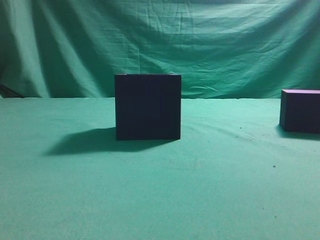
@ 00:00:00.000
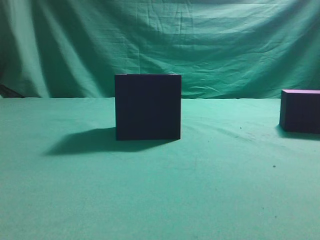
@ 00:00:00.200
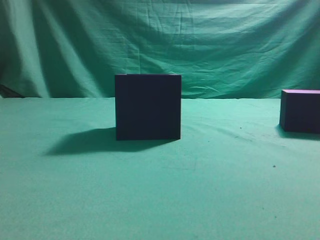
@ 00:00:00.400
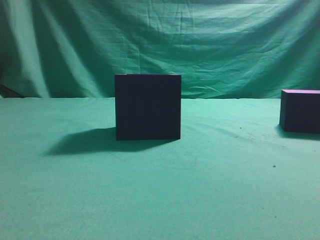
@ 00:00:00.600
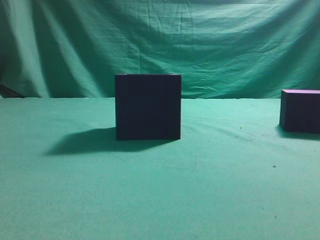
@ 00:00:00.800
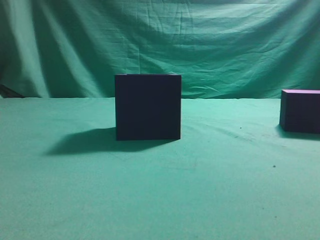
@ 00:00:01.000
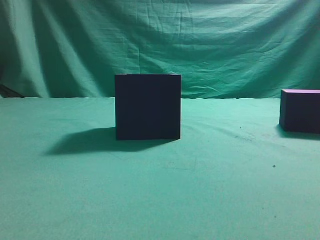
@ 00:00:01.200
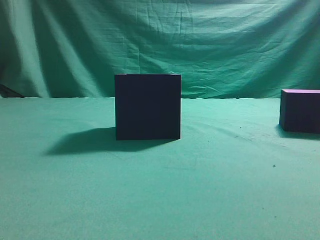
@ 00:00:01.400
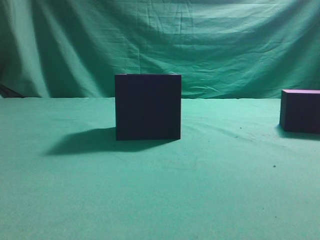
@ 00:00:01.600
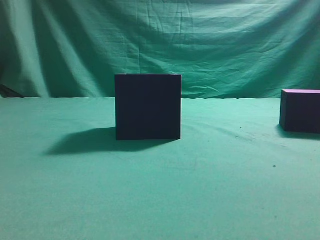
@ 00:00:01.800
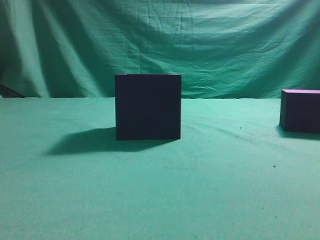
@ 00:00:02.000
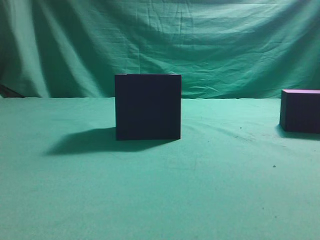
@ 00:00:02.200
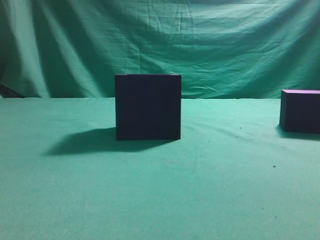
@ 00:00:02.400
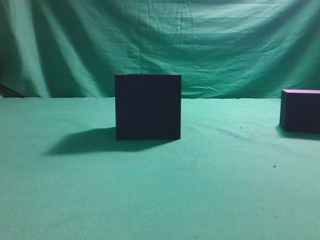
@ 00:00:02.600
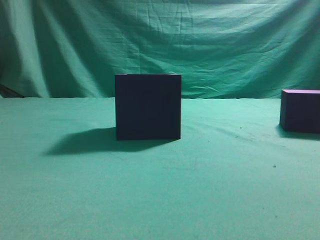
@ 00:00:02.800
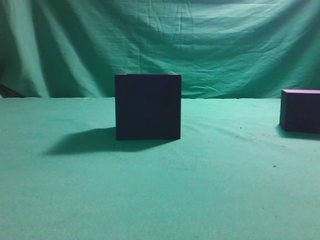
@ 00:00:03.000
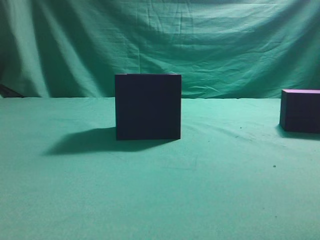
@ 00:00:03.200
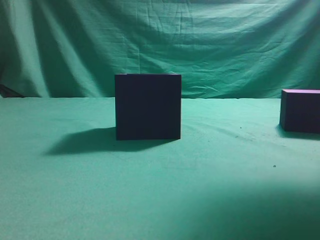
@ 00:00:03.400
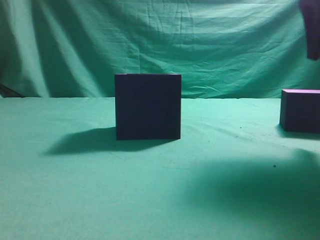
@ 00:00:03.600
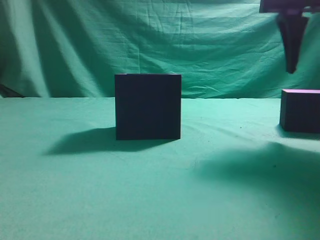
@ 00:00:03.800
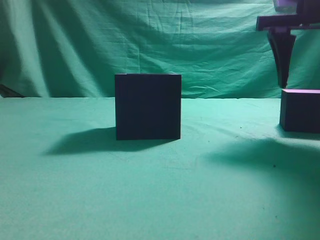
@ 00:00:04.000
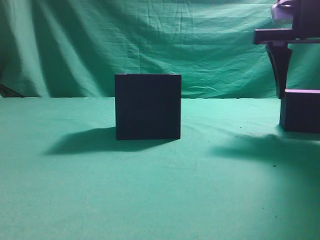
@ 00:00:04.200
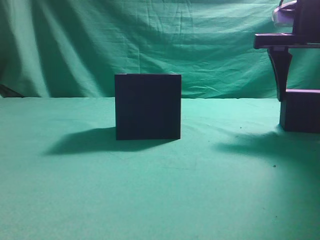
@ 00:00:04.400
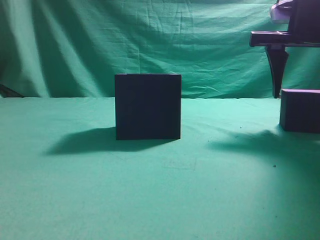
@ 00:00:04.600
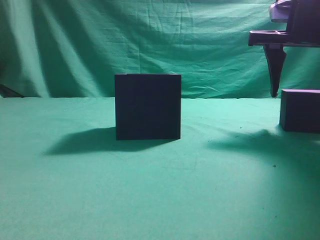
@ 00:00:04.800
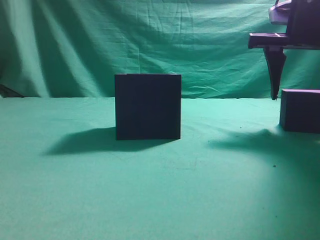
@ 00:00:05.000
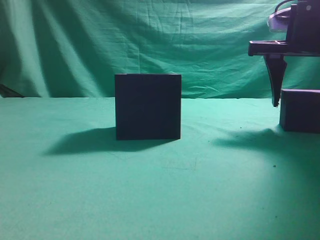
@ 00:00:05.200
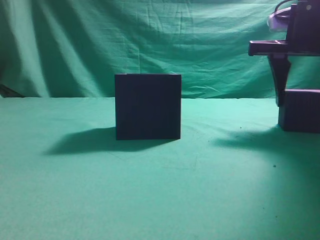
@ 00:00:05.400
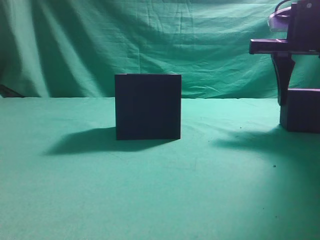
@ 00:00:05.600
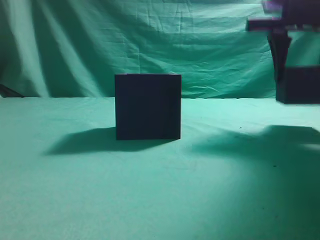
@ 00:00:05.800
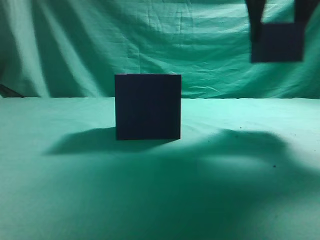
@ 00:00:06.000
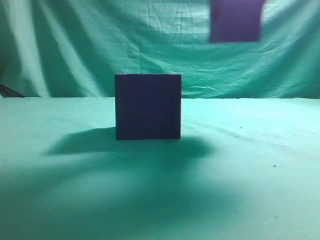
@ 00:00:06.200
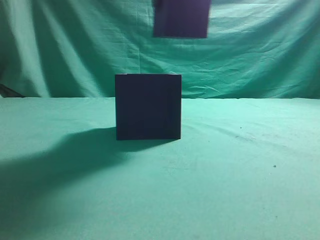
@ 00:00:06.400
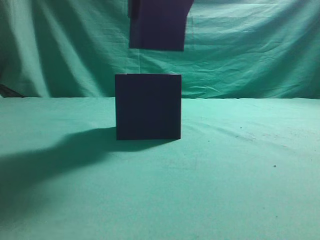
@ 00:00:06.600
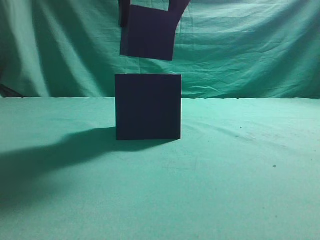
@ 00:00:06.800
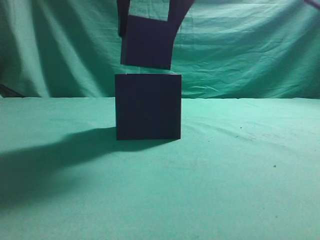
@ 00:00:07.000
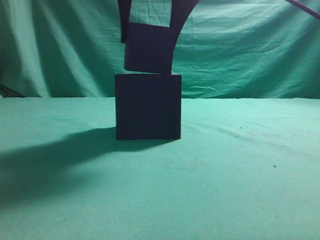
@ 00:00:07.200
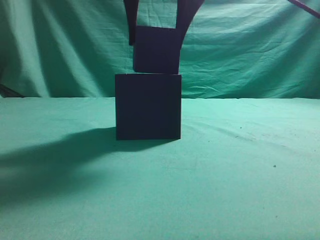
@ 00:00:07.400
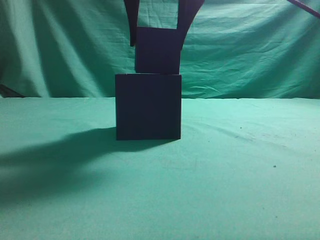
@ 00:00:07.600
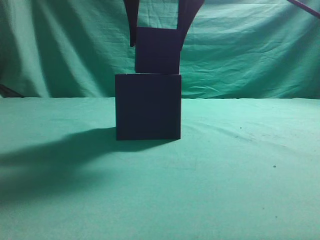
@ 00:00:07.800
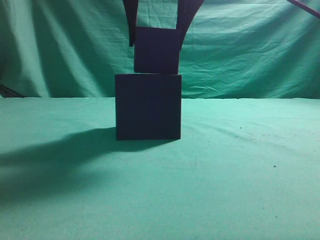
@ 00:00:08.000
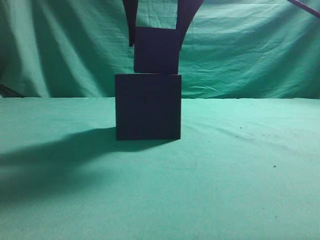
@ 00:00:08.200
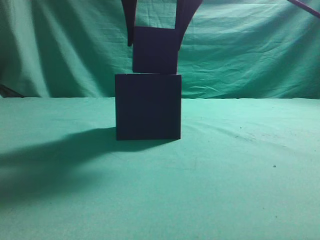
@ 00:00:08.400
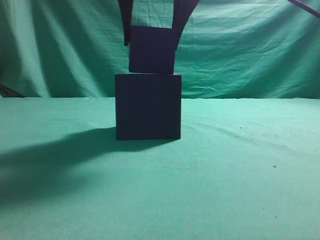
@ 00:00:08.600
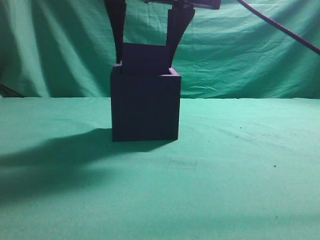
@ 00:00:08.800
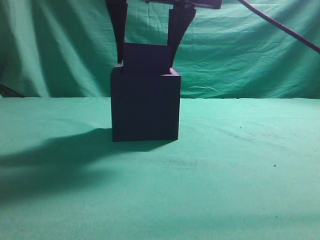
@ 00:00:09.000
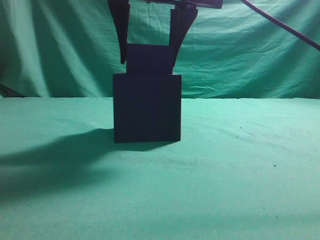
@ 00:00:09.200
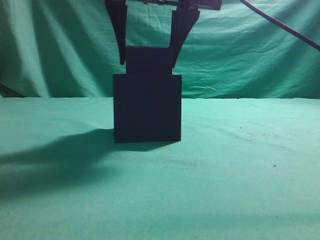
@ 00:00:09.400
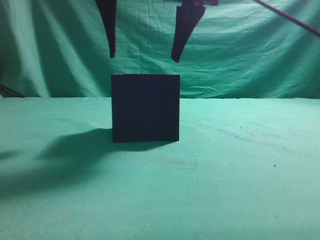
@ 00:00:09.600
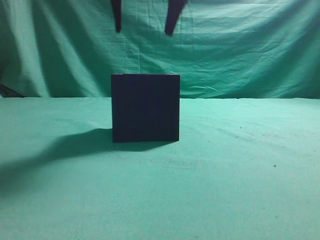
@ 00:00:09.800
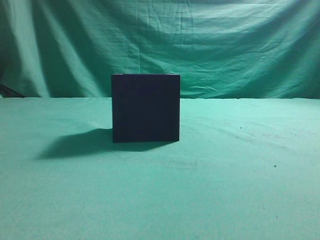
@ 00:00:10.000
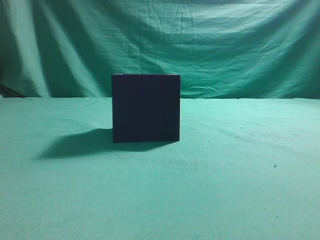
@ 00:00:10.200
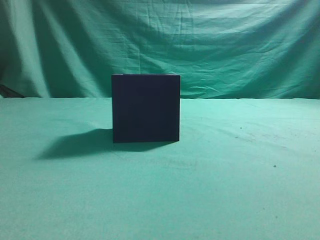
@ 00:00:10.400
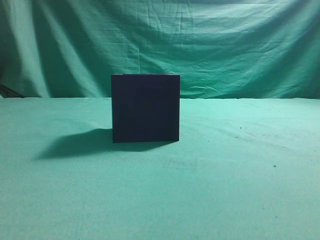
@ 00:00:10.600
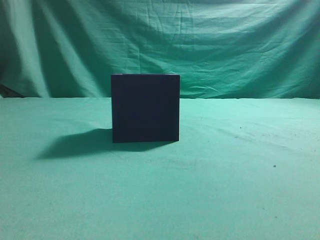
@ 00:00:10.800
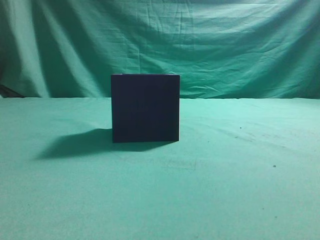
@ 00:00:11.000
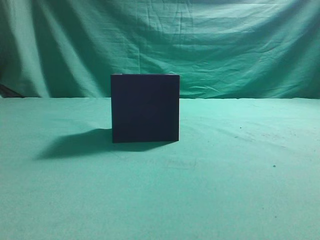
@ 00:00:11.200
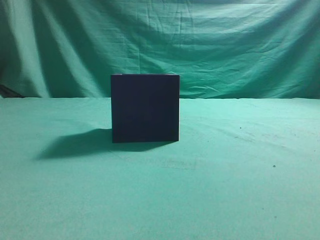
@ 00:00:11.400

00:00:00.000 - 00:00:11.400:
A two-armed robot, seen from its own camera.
Task of the whole recording: pick up the cube block and place it into the cube groove.
Step, 00:00:00.000 - 00:00:05.600: Grasp the cube.
Step, 00:00:06.000 - 00:00:09.600: Place cube into the cube-shaped recess.
00:00:02.800 - 00:00:04.200: The right gripper heads forward, covering some 15 cm, and opens its fingers.
00:00:04.200 - 00:00:05.600: There are only small adjustments of the grippers.
00:00:05.600 - 00:00:07.200: The right gripper is displaced to the left and upward by roughly 20 cm.
00:00:07.200 - 00:00:08.600: The grippers move only a little.
00:00:08.600 - 00:00:10.000: The right gripper is displaced upward by about 5 cm, and closes.
